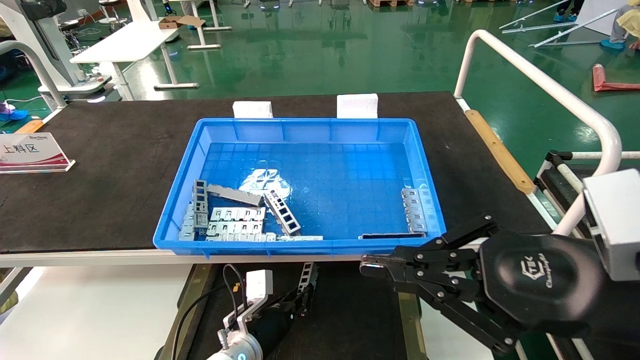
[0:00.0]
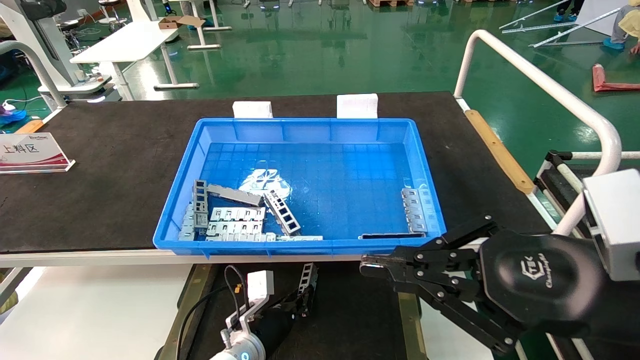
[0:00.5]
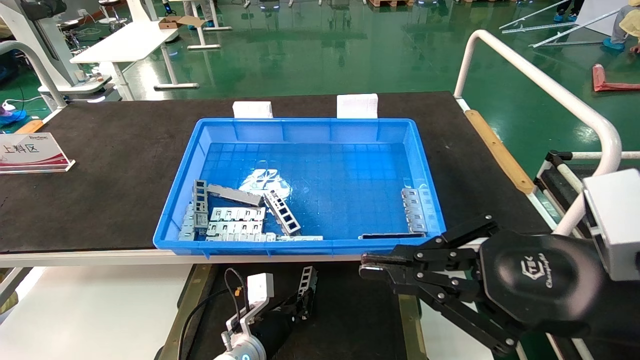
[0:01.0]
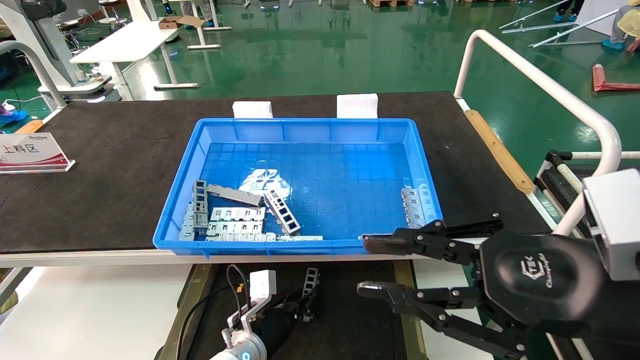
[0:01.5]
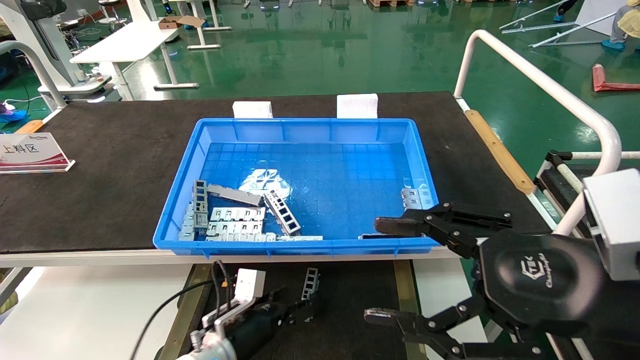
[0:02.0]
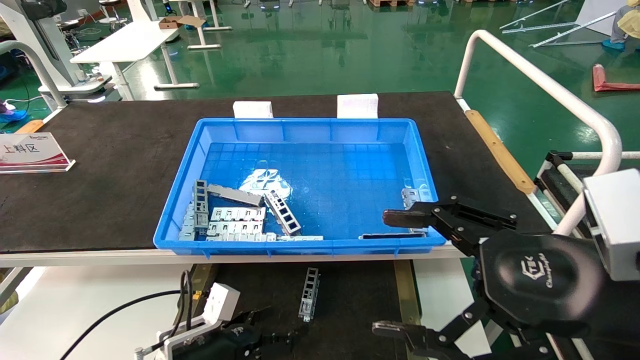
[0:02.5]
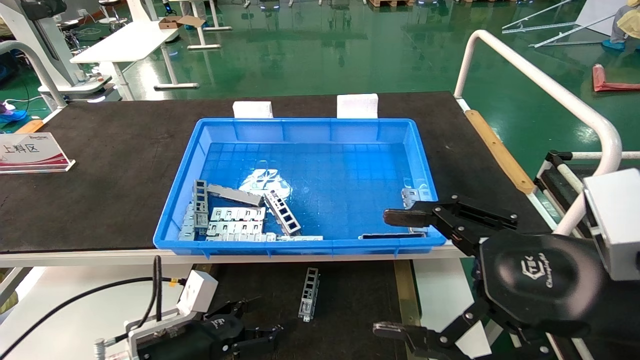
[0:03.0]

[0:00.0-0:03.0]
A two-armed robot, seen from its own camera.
Task of the whole recording: Grasp the part with one hand and place it on the black container.
0:00.0 to 0:01.5: Both grippers stay put.
0:01.5 to 0:03.0: The left gripper moves to the left, backward and upward, about 20 cm, and opens; the right gripper opens its fingers.

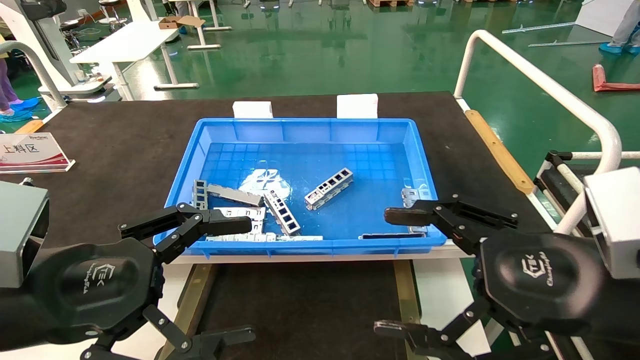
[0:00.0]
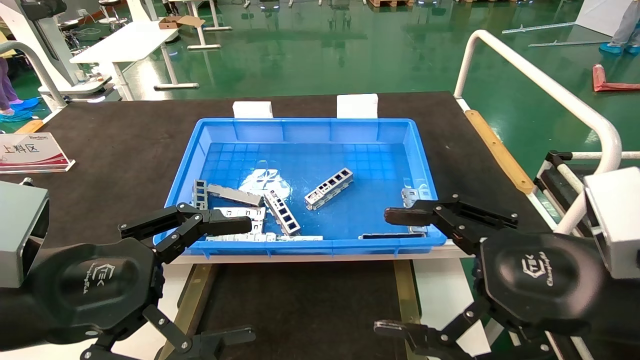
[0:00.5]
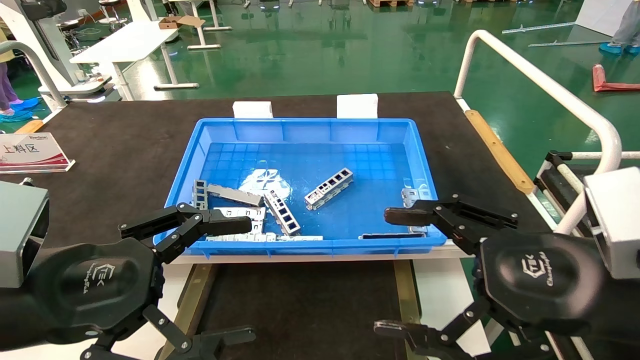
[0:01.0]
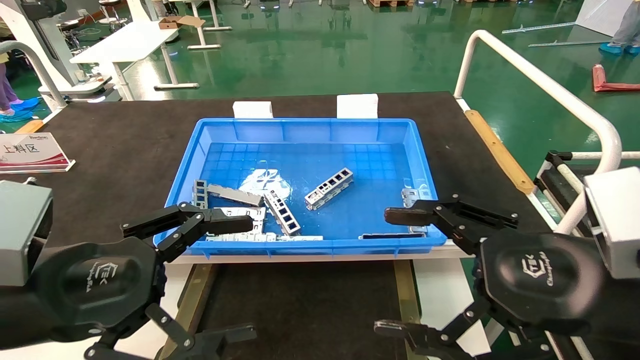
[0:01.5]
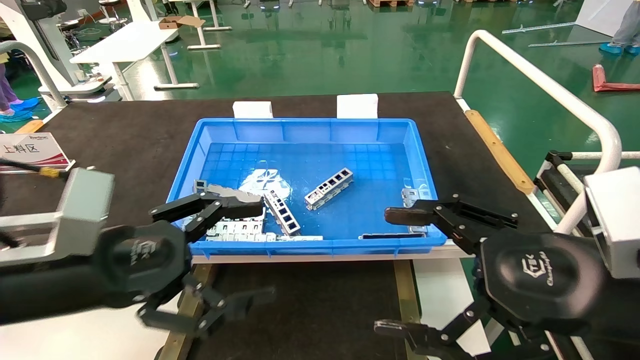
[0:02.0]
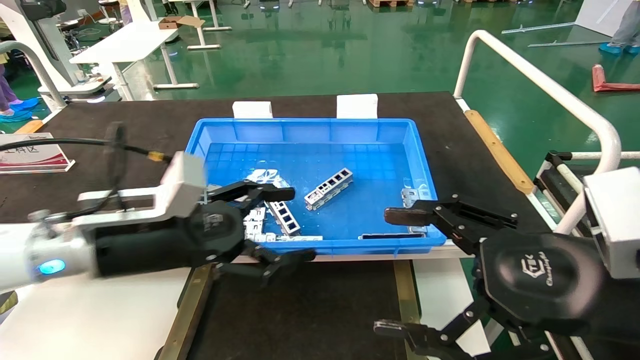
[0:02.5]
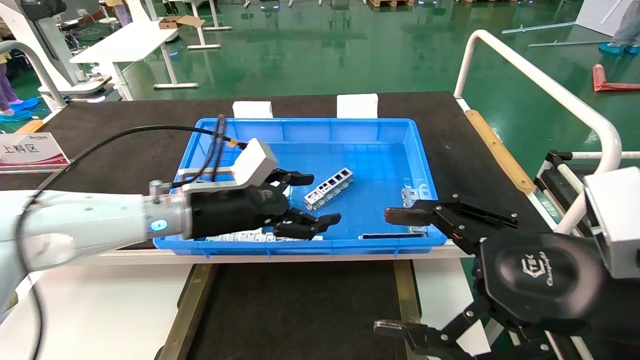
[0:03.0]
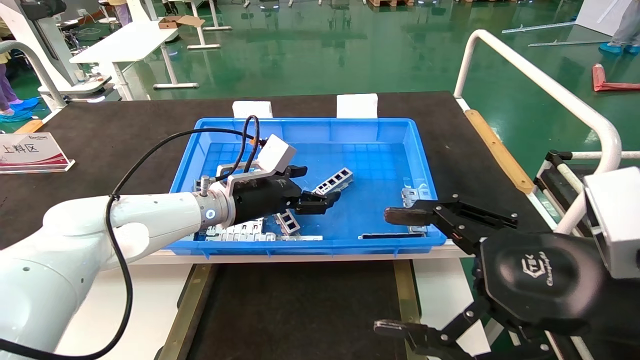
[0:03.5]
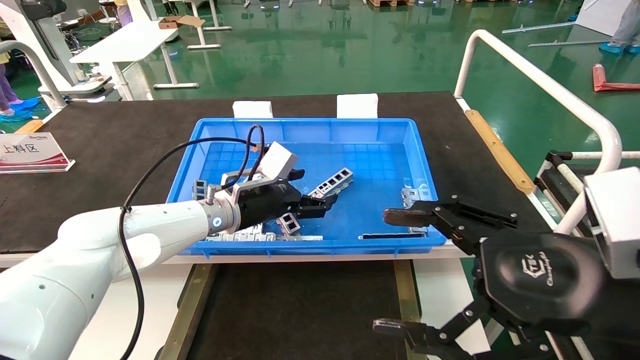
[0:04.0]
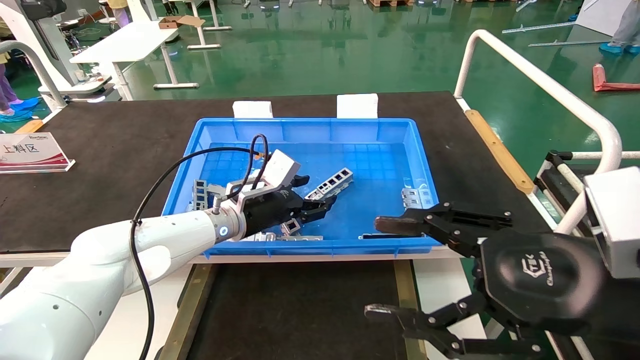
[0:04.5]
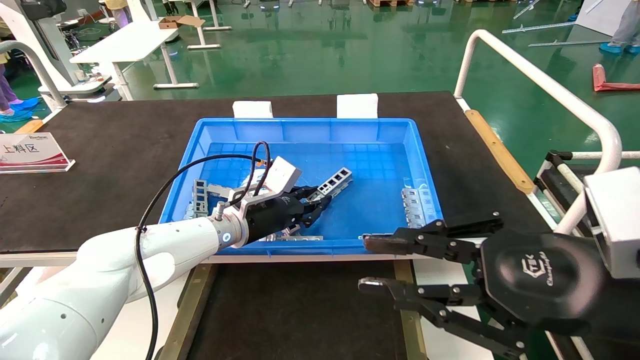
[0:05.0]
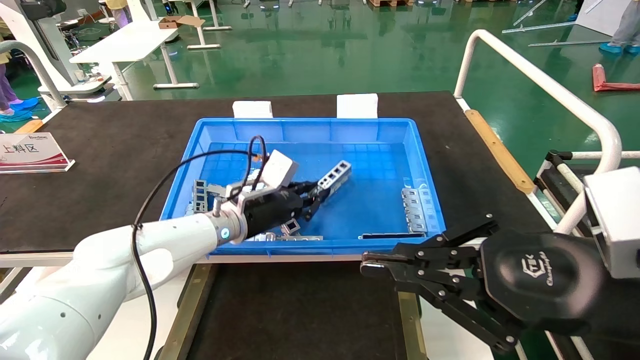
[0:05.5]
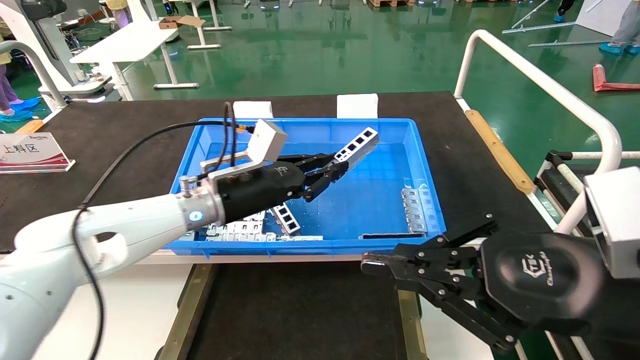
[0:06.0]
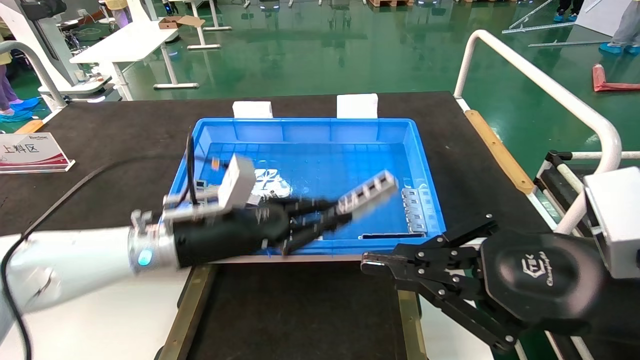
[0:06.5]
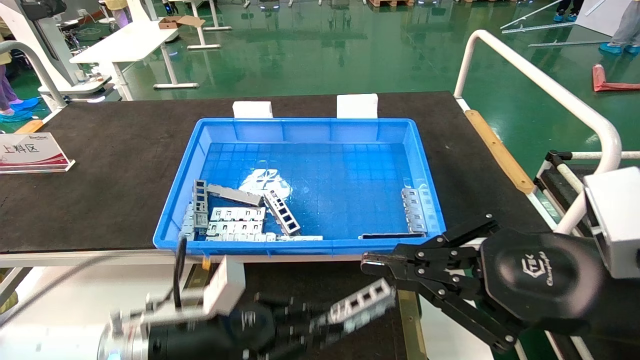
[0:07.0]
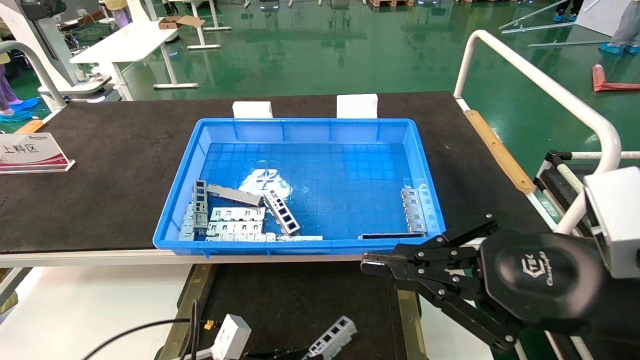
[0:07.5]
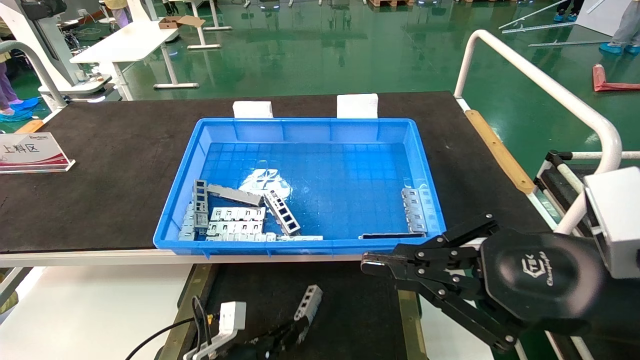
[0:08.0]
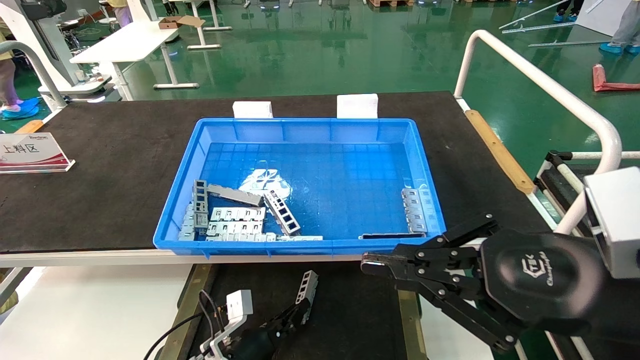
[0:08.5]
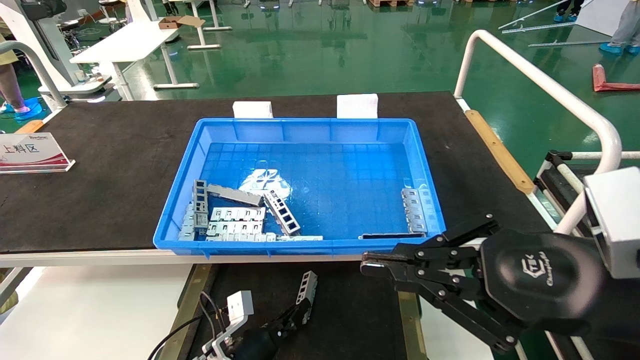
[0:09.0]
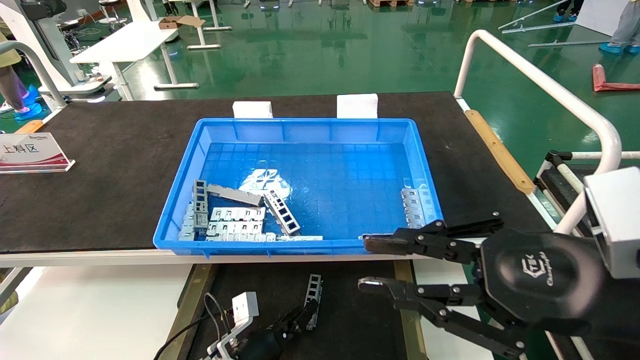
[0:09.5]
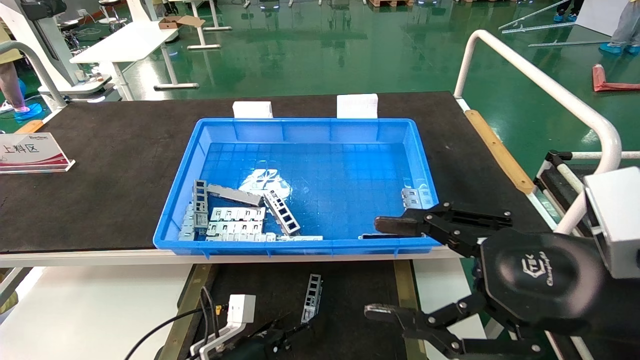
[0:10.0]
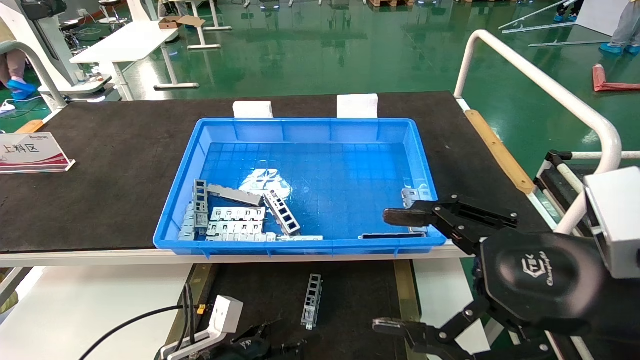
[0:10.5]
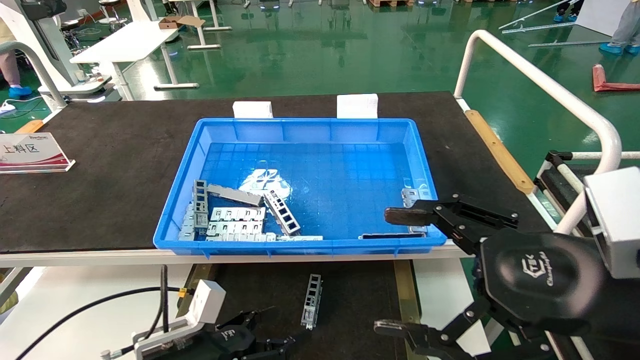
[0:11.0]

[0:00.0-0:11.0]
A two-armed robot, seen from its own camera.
Task of the whole recording: Grasp the part with one hand and place it on the black container.
Step, 0:02.0 to 0:05.0: Pick up the front USB bracket from the feeding area.
Step, 0:05.5 to 0:09.0: Place the front USB bracket into the box.
0:00.0 to 0:02.0: The grippers move only a little.
0:02.0 to 0:03.5: The left gripper travels forward and to the right by some 25 cm.
0:03.5 to 0:05.5: The left gripper closes its fingers, while the right gripper closes.
0:05.5 to 0:07.5: The left gripper moves downward and backward, approximately 25 cm.
0:07.5 to 0:09.0: The left gripper heads forward and downward, covering roughly 10 cm.
0:09.0 to 0:11.0: The right gripper opens. Meanwhile the left gripper is displaced upward, backward and to the left by about 15 cm, and opens its fingers.
